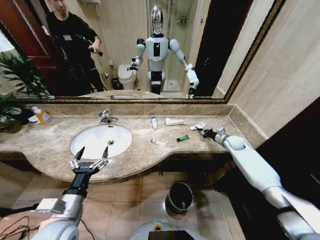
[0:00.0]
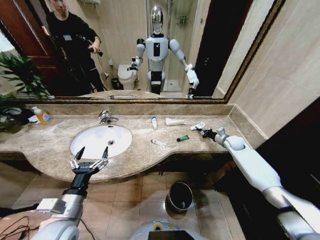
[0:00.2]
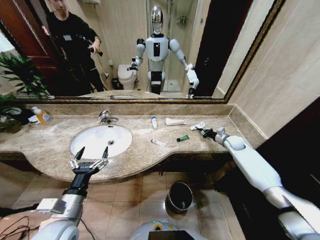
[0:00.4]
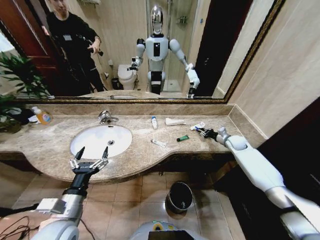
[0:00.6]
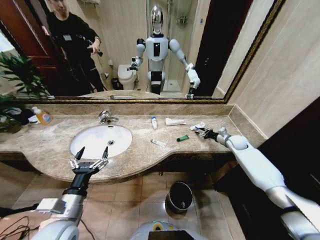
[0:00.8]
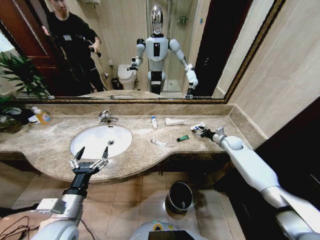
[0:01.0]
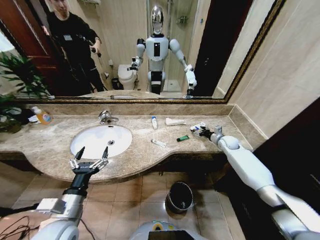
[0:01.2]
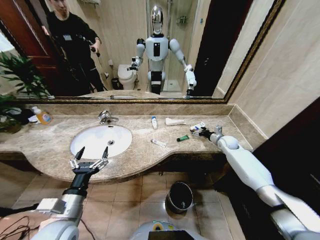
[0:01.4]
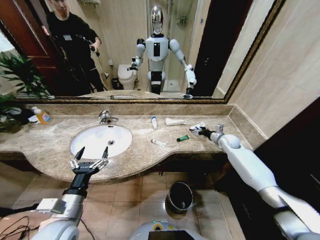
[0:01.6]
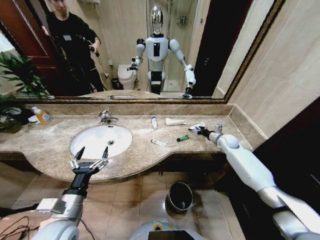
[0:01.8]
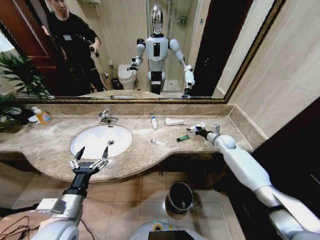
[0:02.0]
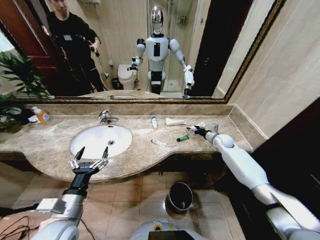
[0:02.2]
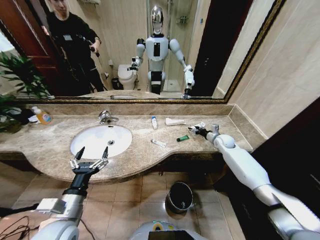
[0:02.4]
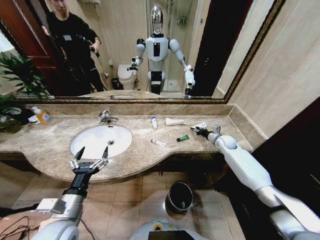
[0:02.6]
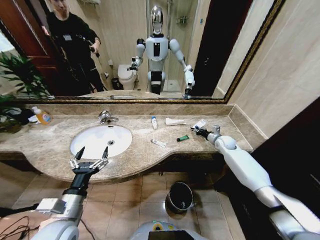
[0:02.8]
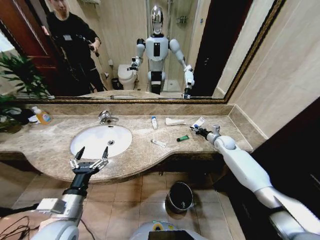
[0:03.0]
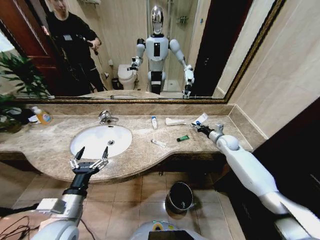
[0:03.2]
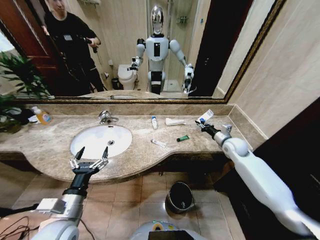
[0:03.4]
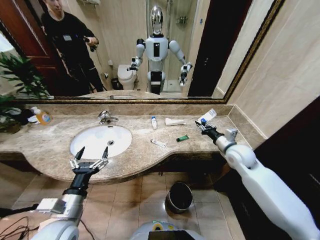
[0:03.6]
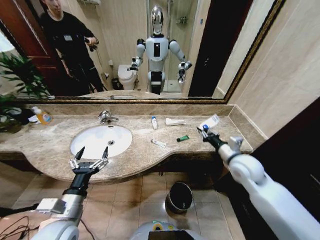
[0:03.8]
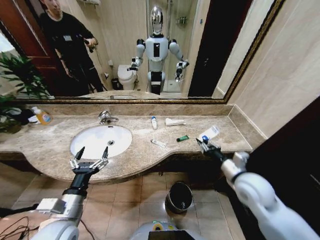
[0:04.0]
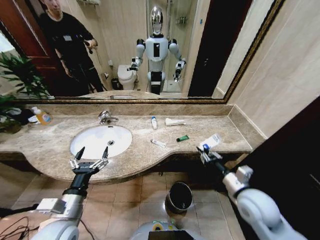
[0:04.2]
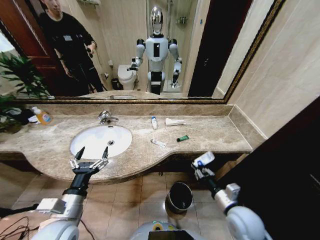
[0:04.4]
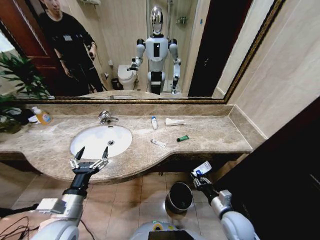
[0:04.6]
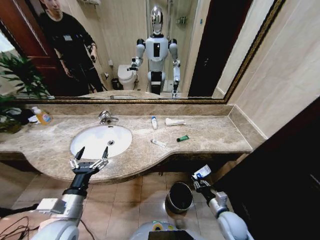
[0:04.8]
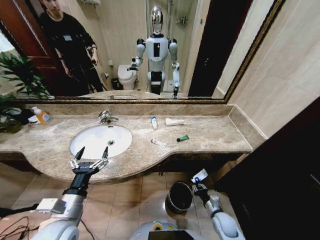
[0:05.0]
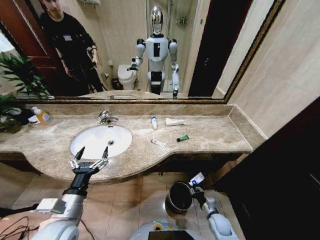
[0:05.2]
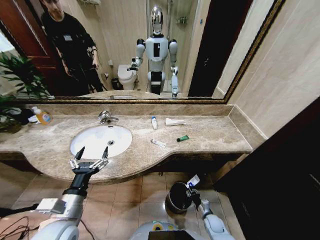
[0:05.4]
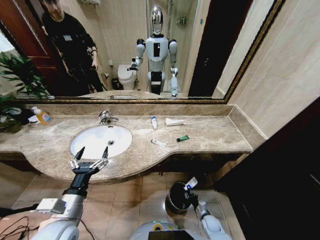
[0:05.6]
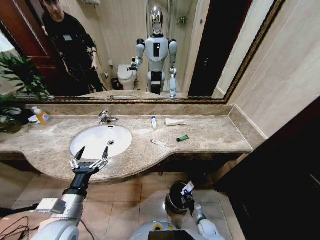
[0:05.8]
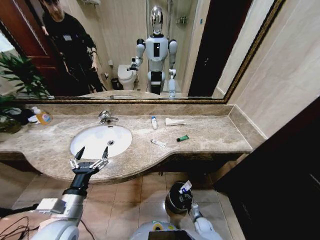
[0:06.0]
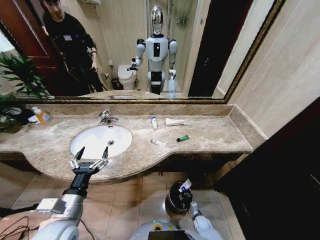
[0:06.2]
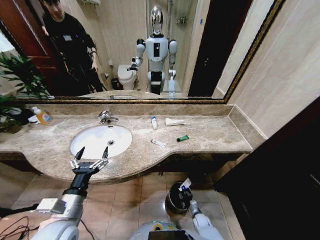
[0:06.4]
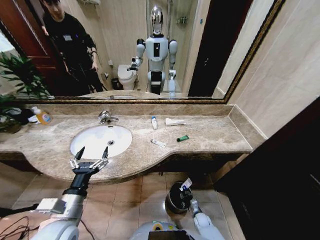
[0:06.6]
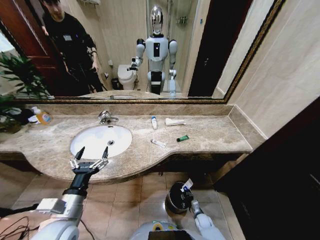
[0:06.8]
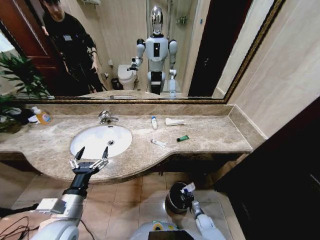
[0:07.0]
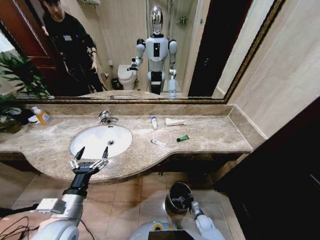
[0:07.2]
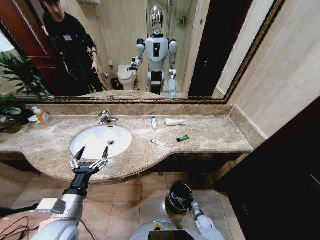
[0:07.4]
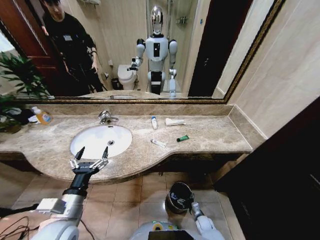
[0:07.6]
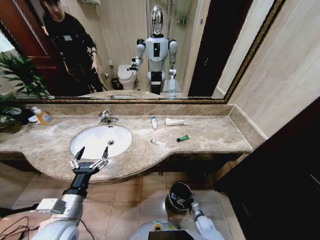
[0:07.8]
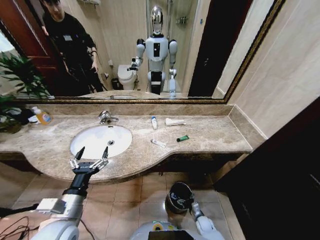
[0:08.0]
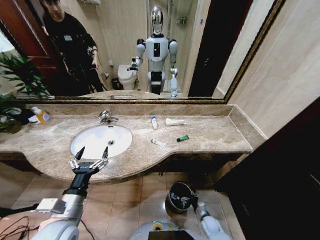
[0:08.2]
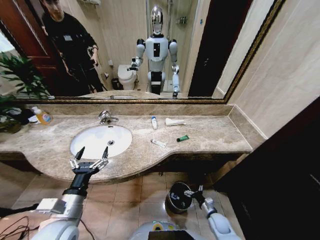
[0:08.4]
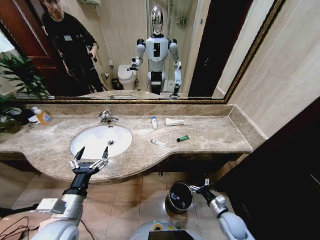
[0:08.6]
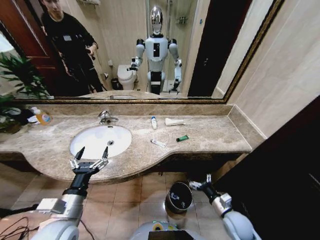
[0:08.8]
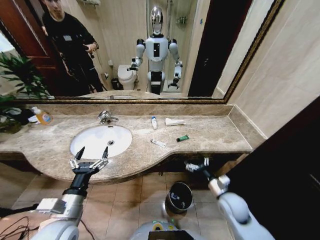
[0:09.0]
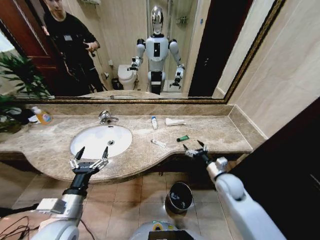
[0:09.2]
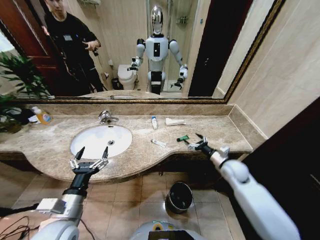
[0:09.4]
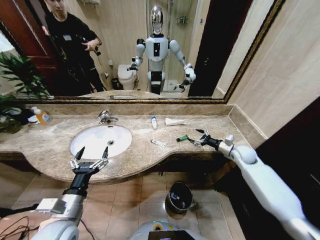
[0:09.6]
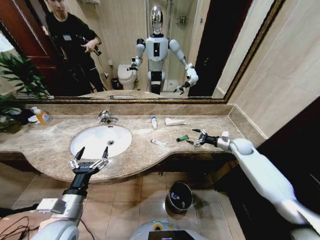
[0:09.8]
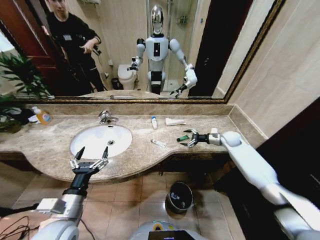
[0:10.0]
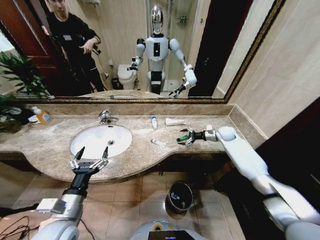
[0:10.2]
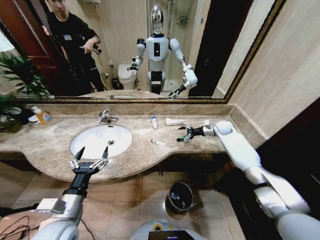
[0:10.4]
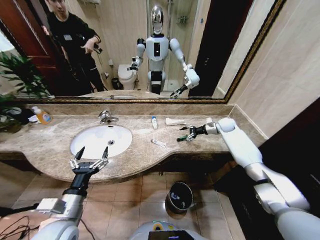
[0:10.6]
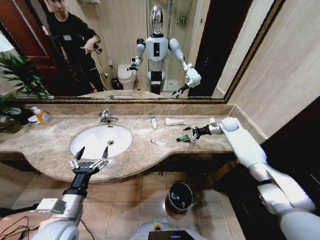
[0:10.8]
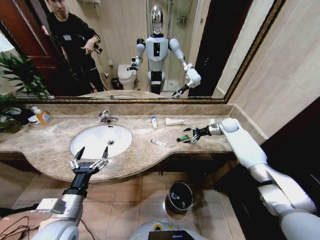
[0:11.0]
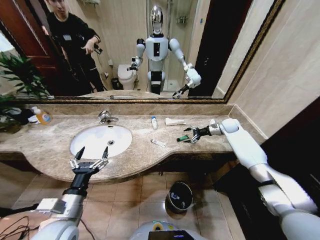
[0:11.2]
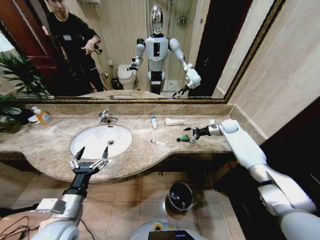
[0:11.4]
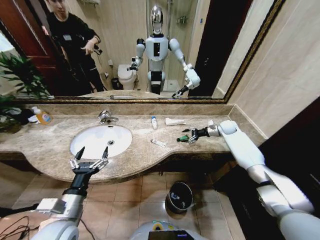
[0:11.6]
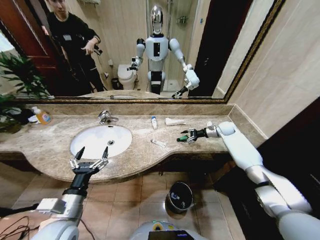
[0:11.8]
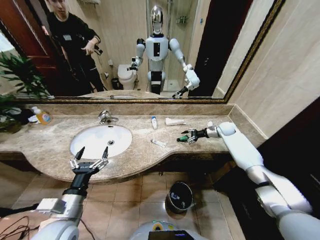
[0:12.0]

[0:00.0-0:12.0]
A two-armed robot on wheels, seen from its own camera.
Task of the whole recording: Pick up the trash from the sink and place it in the trash bin.
0:00.0 to 0:01.6: The right gripper opens up.
0:01.6 to 0:03.0: The right gripper closes.
0:03.0 to 0:04.4: The right gripper is displaced backward by about 35 cm.
0:04.4 to 0:06.0: The right gripper travels downward by approximately 40 cm.
0:06.0 to 0:07.6: The right gripper opens.
0:07.6 to 0:09.0: The right gripper travels upward by some 30 cm.
0:09.0 to 0:10.4: The right gripper moves forward, some 35 cm.
0:10.4 to 0:12.0: There are only small adjustments of the grippers.

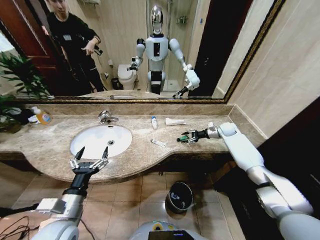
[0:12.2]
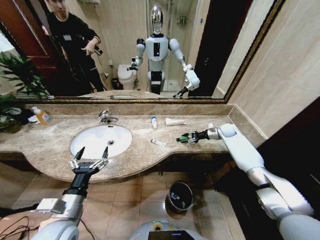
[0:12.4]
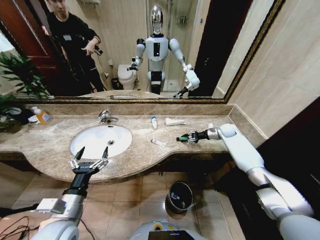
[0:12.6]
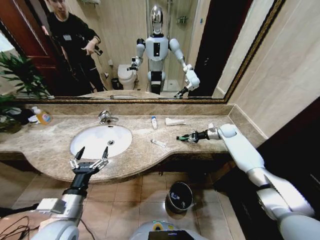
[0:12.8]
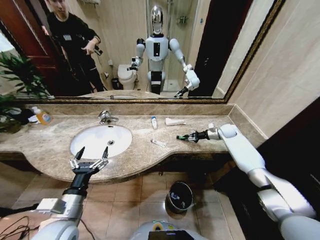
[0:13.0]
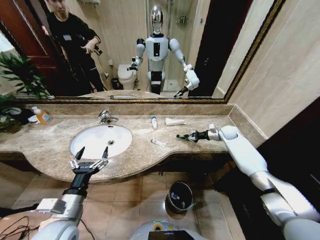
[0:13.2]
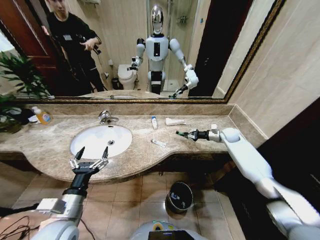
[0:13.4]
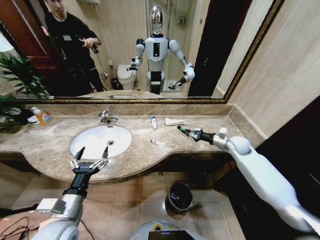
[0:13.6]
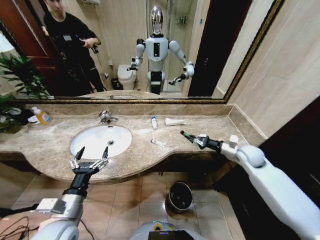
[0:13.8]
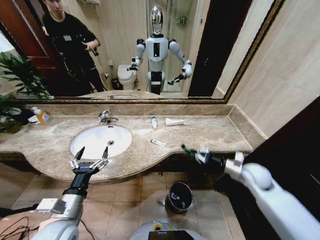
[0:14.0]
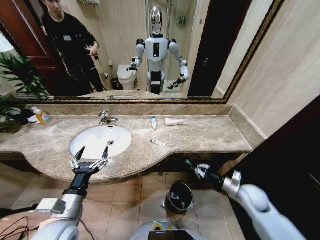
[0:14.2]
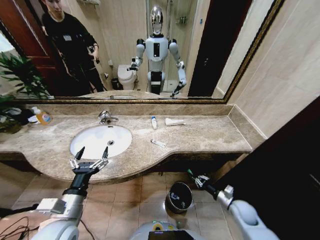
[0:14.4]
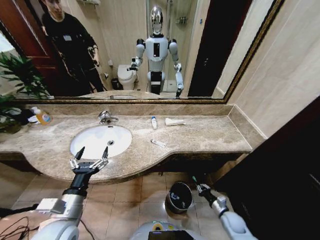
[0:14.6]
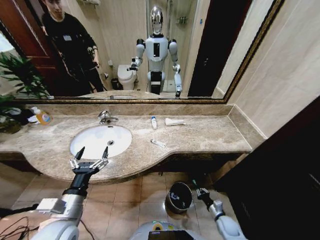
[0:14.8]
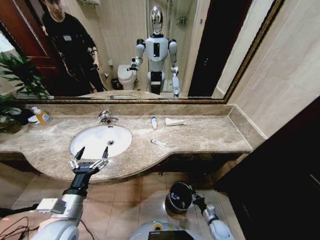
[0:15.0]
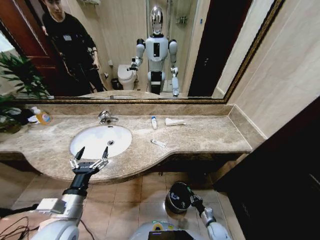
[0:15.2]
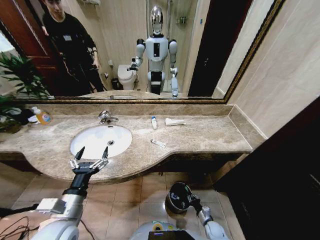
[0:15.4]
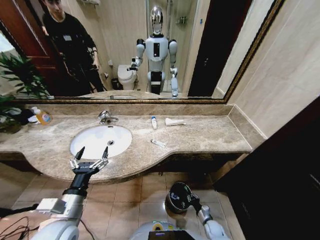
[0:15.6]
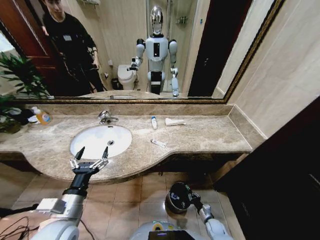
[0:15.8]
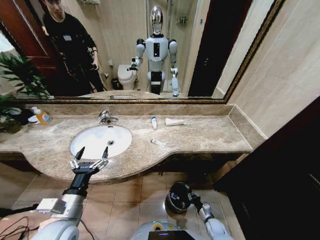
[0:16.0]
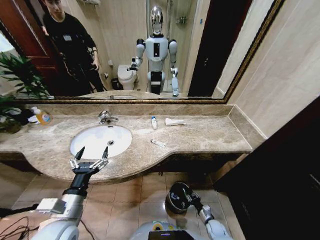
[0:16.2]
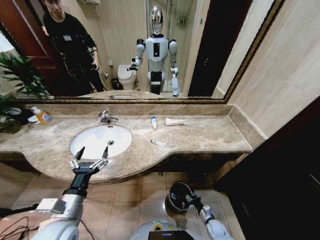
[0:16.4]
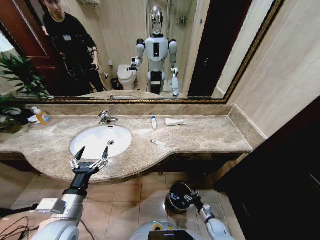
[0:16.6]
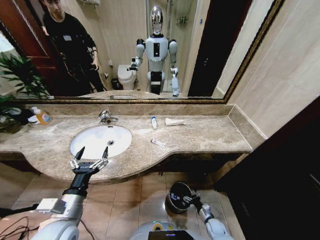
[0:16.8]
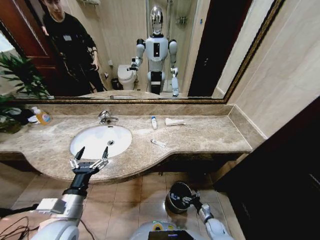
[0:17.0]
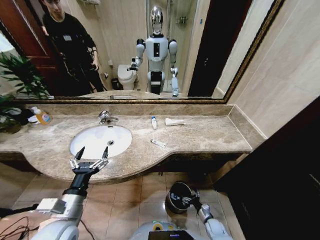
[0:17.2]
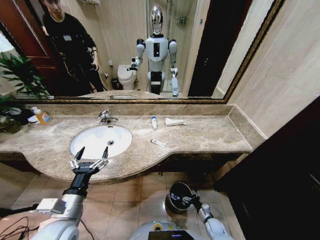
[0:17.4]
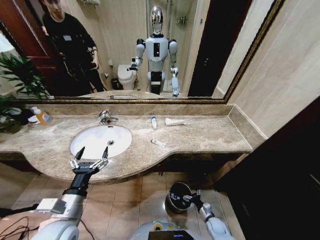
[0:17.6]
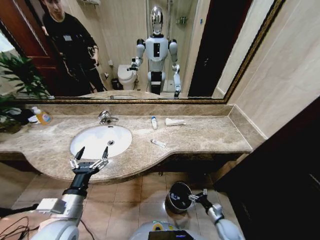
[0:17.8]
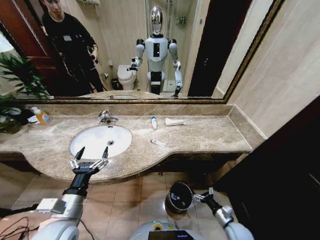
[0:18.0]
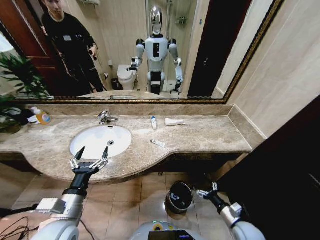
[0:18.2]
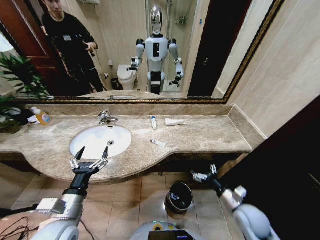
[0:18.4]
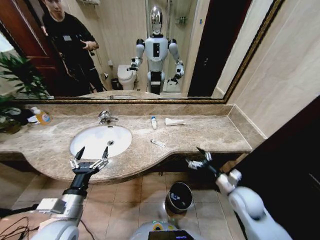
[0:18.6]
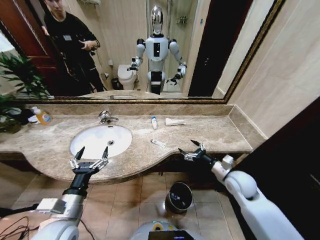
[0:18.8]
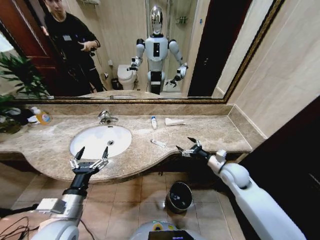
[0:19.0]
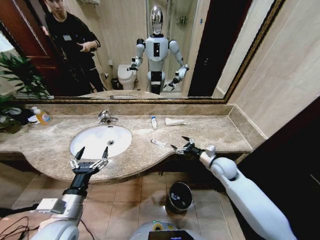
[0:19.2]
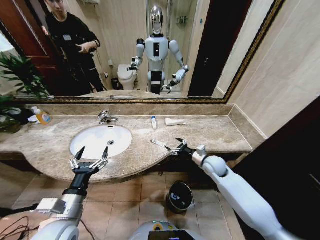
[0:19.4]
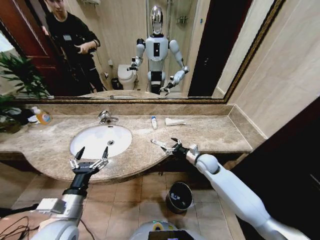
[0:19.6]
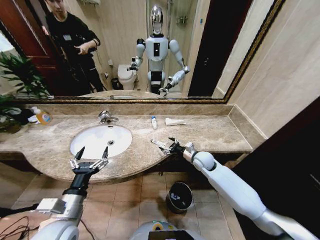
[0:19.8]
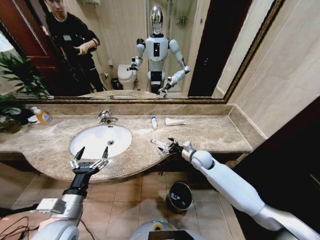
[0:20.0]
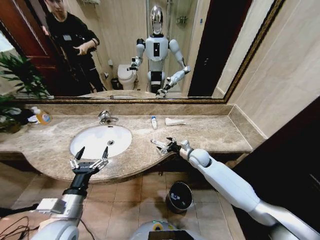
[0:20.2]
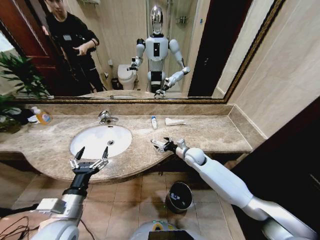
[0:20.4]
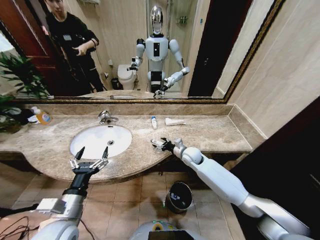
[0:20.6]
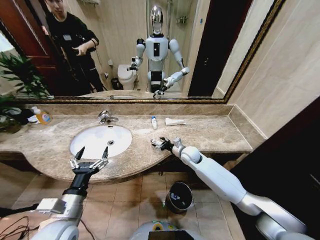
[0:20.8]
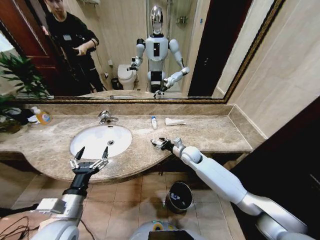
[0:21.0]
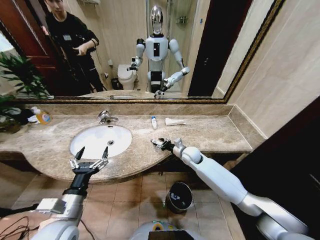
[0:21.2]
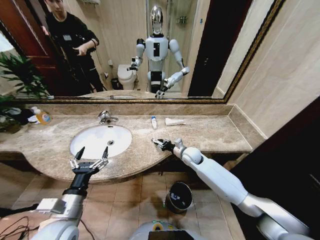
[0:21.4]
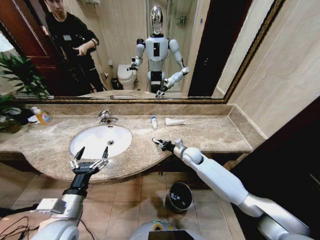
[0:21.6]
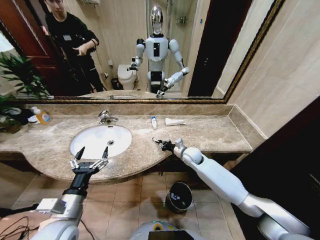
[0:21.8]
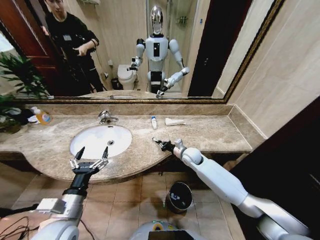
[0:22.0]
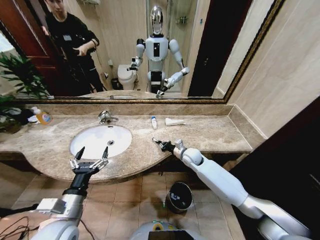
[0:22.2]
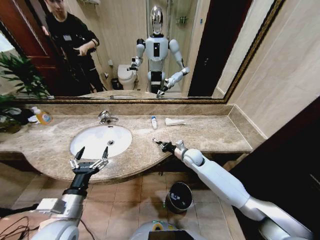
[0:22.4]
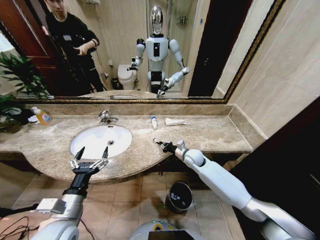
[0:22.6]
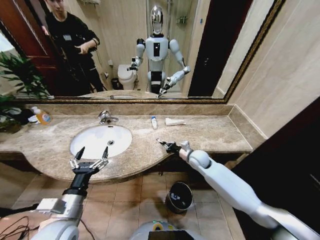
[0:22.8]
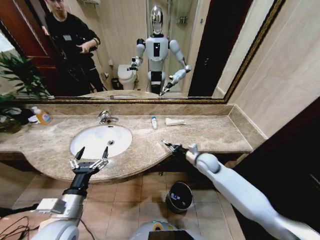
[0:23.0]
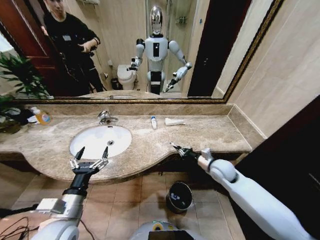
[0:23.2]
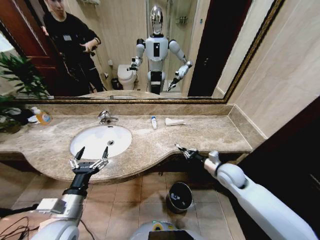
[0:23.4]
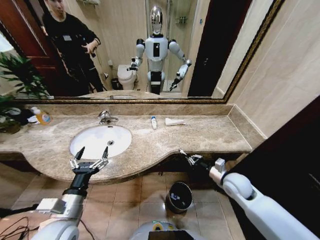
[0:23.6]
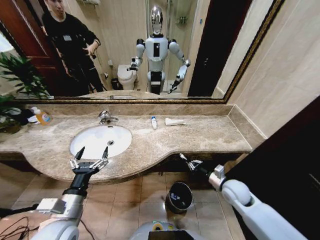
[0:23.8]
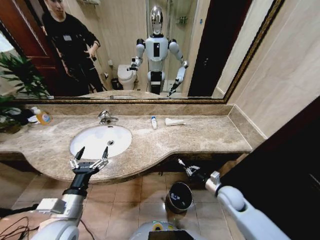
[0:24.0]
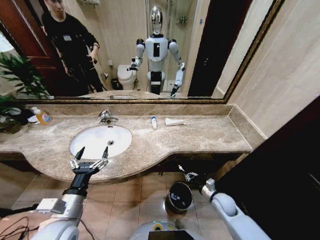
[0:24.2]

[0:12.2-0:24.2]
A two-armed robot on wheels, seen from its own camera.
Task of the whole recording: Pick up the trash from the sink and place it in the trash bin.
0:12.2 to 0:13.8: The right gripper is displaced backward by roughly 20 cm, and closes its fingers.
0:13.8 to 0:15.2: The right gripper moves downward and backward, about 50 cm.
0:16.6 to 0:18.2: The right gripper moves upward, some 20 cm.
0:18.2 to 0:19.8: The right gripper heads forward, upward and to the left, covering approximately 30 cm.
0:19.8 to 0:21.2: The right gripper moves to the left, roughly 5 cm, and closes up.
0:21.2 to 0:22.6: The right gripper closes.
0:22.6 to 0:24.2: The right gripper moves backward, downward and to the right, about 25 cm.
